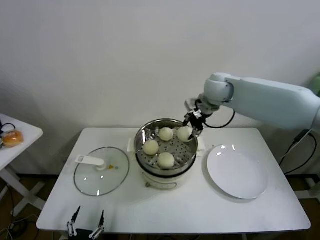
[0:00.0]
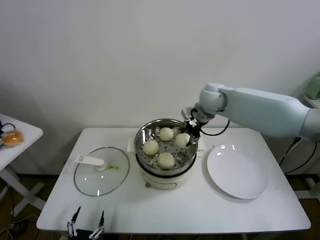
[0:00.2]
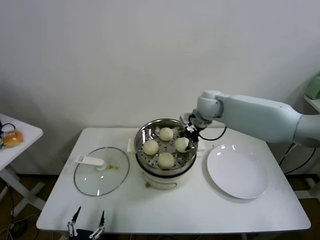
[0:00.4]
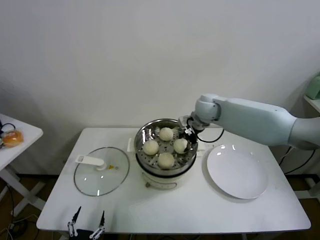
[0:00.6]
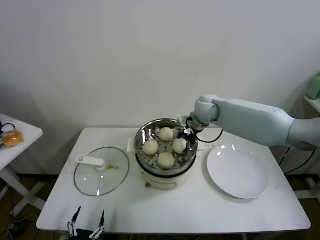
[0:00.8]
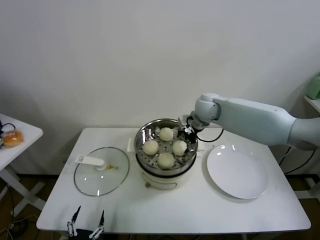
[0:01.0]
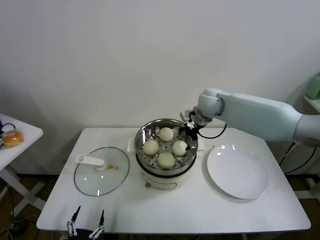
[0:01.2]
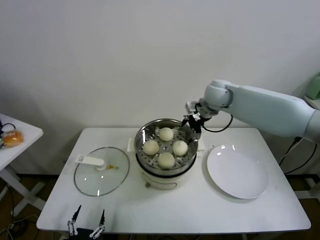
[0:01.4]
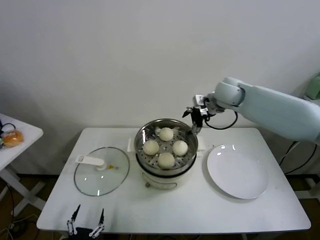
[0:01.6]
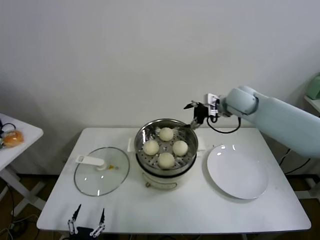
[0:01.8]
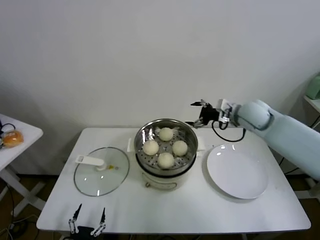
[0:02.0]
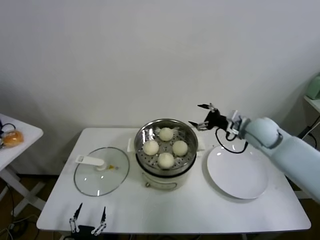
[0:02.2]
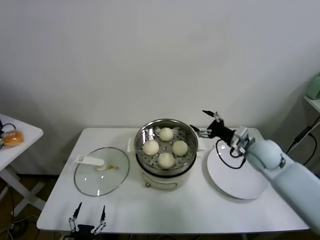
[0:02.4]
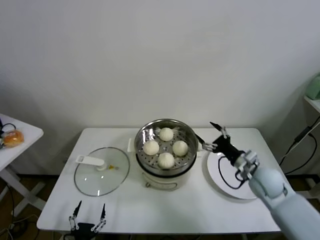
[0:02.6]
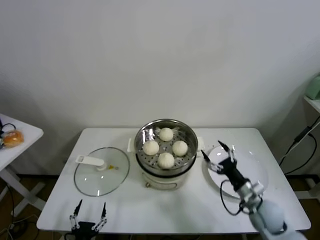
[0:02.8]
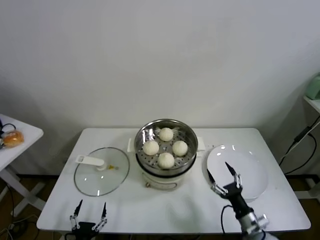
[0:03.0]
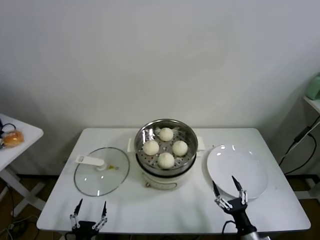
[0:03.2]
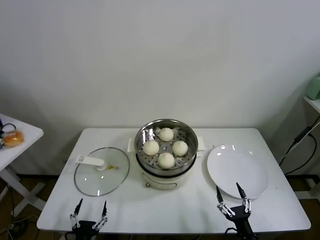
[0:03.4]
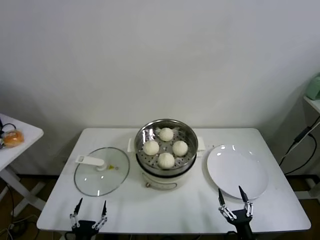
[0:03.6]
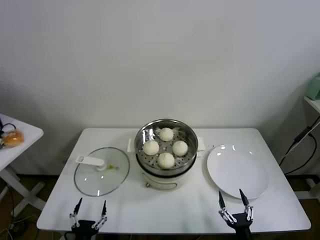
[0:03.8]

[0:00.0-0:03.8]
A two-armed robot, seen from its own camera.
Task of the whole recording: take steamed baozi put them in steamer.
0:00.0 to 0:01.2: The right gripper travels downward by approximately 5 cm, and opens its fingers.
0:01.2 to 0:02.6: The right gripper travels backward, to the right and downward by roughly 30 cm.
0:02.6 to 0:03.8: The right gripper shifts roughly 35 cm backward and downward.
